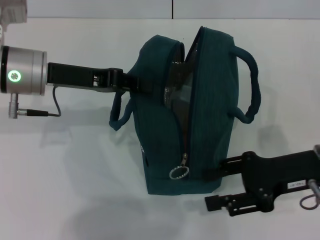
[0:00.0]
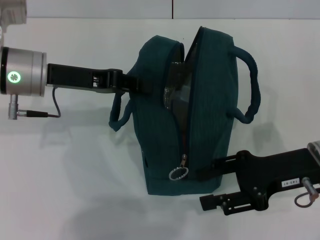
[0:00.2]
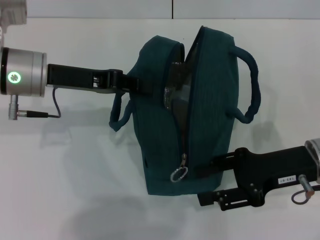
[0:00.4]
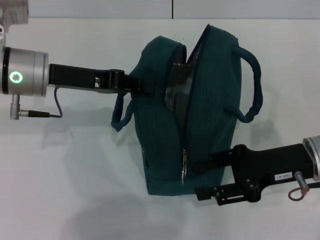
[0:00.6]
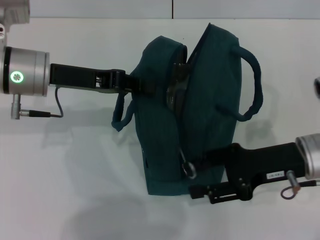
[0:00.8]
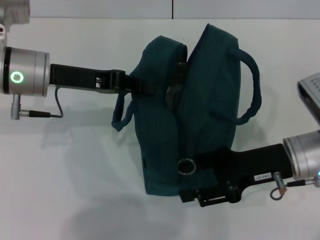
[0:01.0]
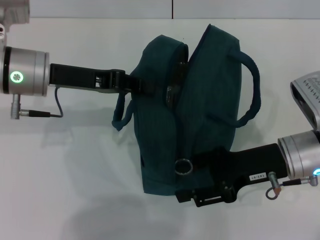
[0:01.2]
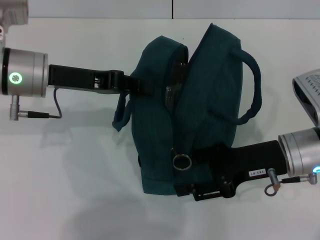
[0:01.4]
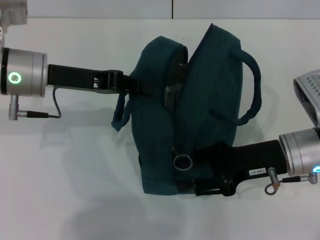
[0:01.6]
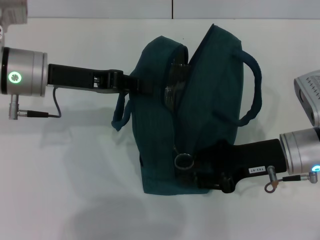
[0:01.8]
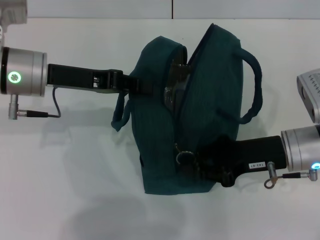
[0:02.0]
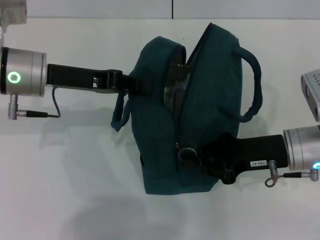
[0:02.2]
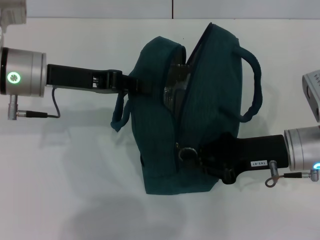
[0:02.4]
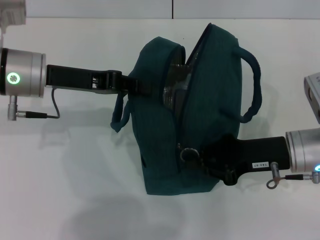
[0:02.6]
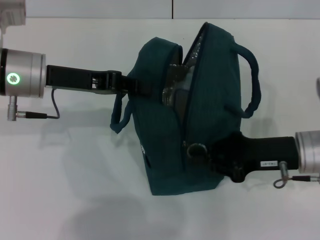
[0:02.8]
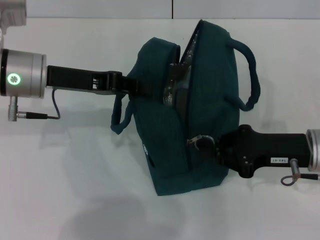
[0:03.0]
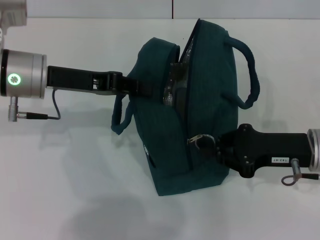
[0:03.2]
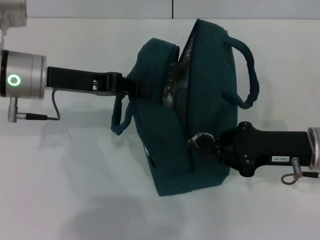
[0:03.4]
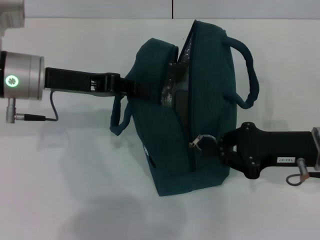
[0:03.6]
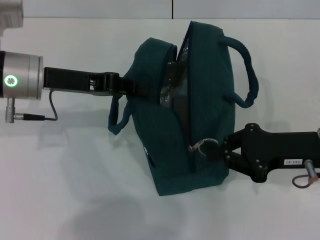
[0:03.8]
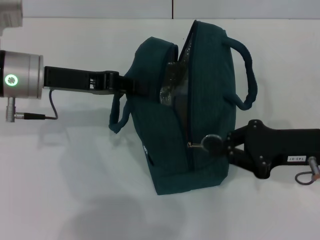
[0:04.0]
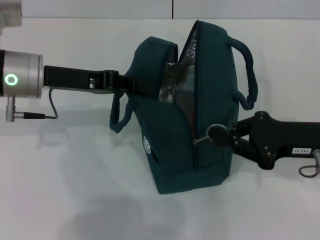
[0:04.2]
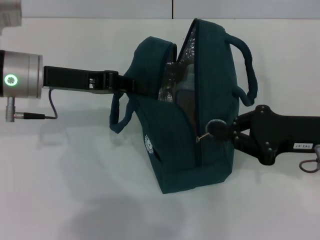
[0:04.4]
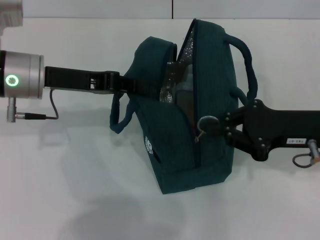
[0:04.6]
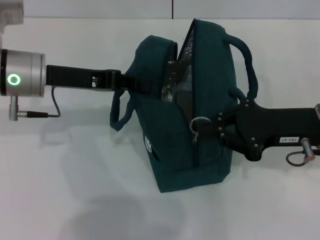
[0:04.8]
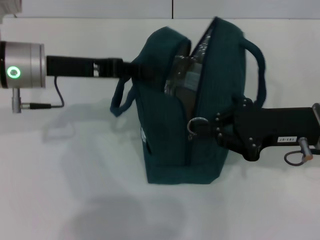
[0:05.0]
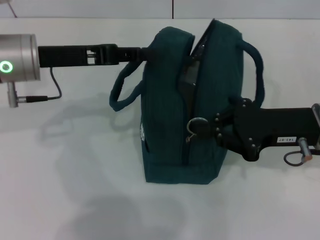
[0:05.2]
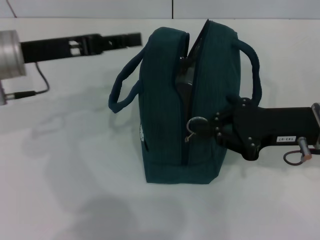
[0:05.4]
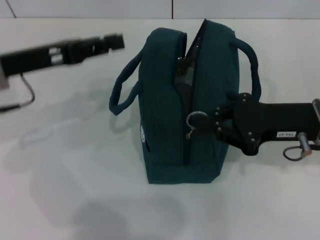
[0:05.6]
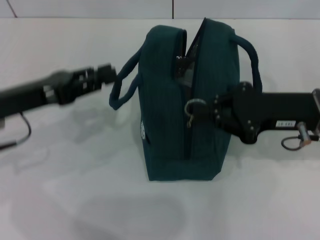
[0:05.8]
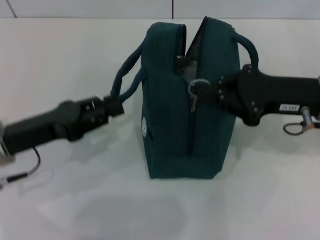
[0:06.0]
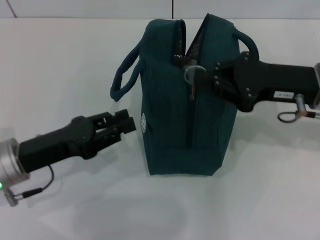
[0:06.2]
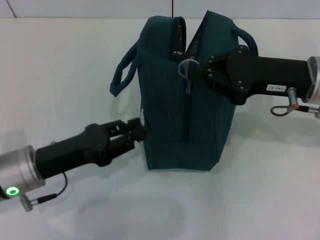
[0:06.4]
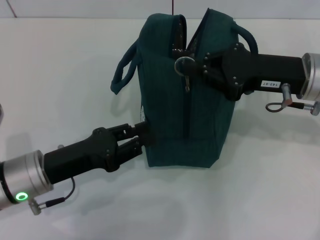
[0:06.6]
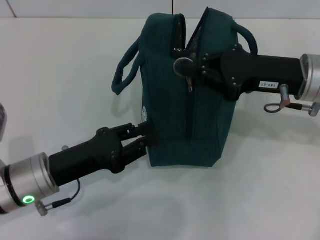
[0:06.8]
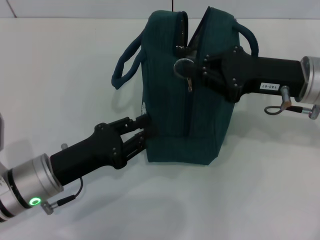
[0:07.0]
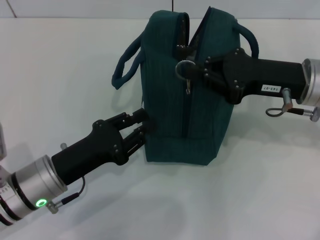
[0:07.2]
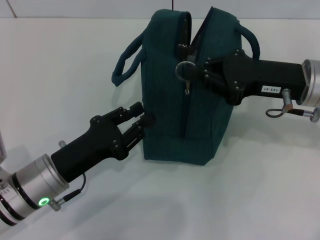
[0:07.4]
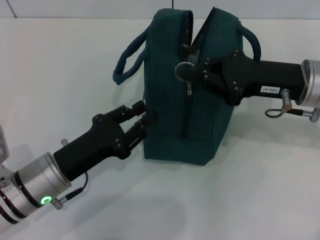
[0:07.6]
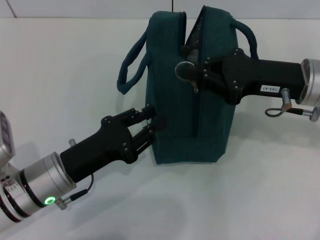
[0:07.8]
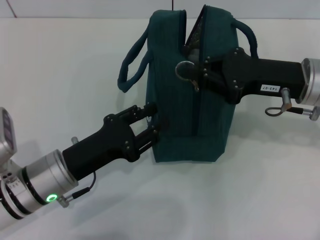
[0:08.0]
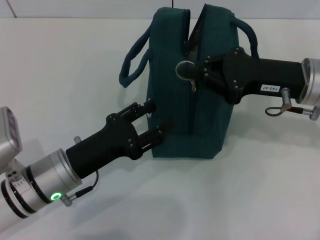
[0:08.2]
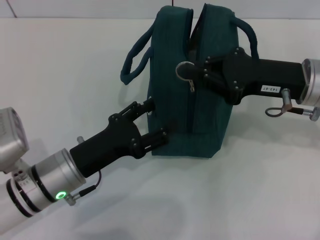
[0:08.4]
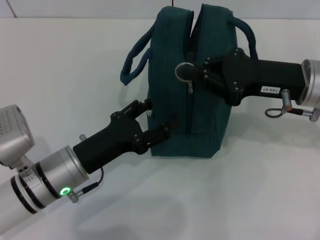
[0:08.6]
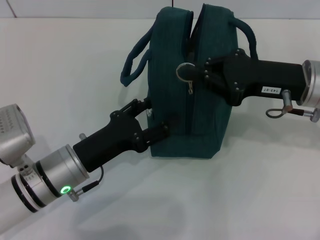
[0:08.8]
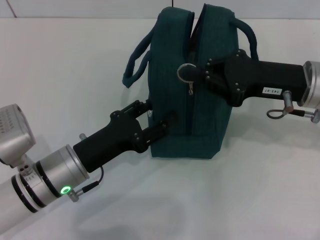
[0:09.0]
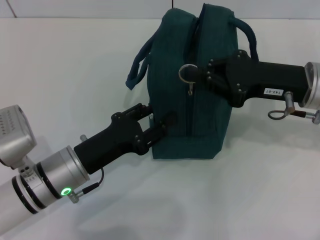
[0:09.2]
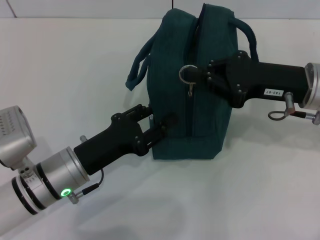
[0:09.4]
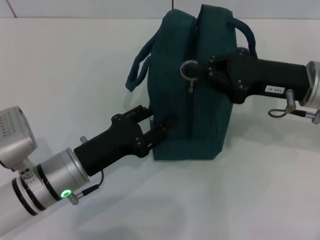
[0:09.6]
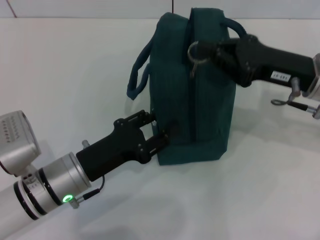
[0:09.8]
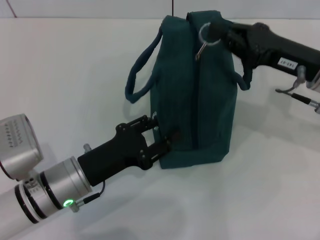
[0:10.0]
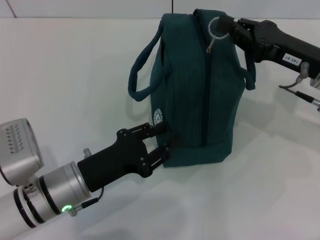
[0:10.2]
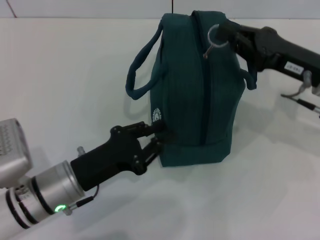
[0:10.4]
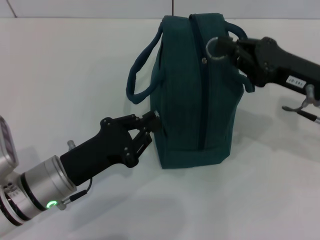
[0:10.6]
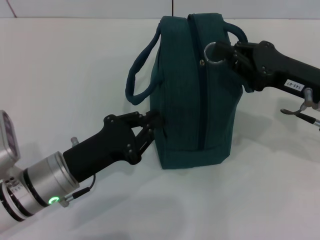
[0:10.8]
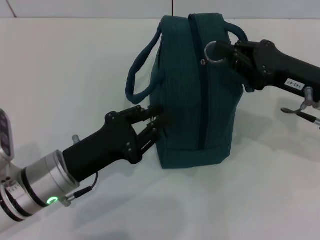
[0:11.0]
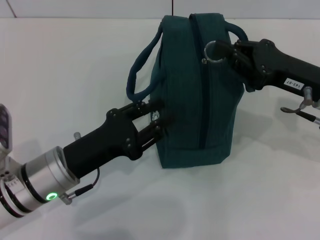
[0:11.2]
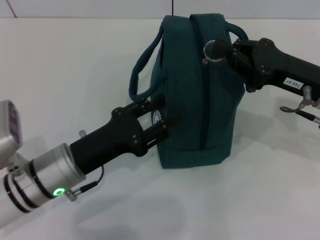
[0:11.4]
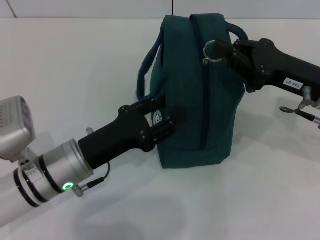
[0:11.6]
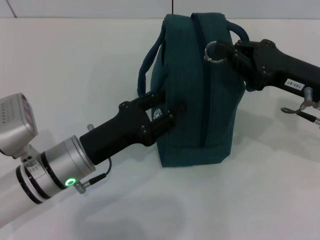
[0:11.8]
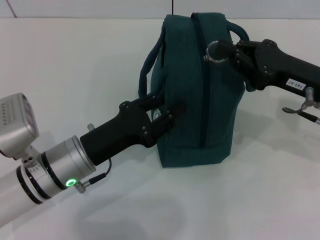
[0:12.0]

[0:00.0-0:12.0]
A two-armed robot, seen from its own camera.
0:00.0 to 0:01.6: There are only small adjustments of the grippers.
0:01.6 to 0:03.0: The right gripper closes its fingers.
0:03.0 to 0:04.4: The grippers make only small movements.
0:04.4 to 0:06.0: The left gripper heads backward and downward, covering about 10 cm, and opens.
0:06.0 to 0:07.6: The left gripper travels to the right and downward by about 10 cm.
0:07.6 to 0:09.0: The left gripper opens up.
0:09.0 to 0:10.4: The left gripper closes up.

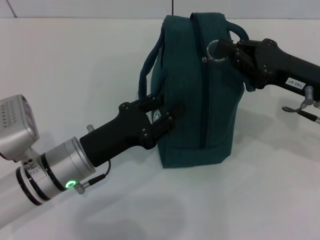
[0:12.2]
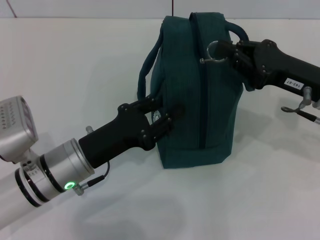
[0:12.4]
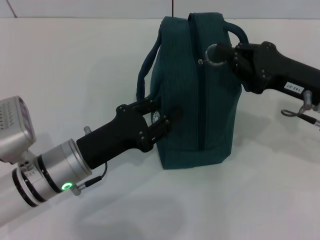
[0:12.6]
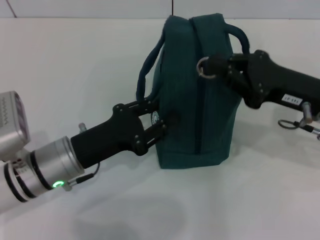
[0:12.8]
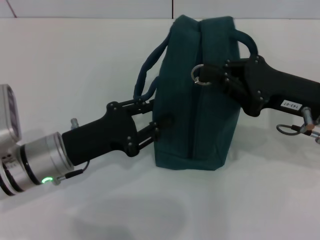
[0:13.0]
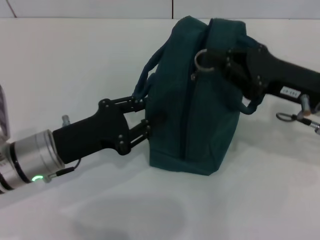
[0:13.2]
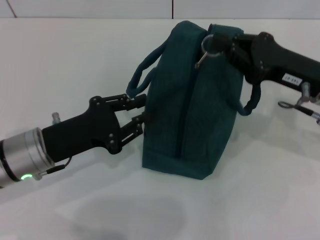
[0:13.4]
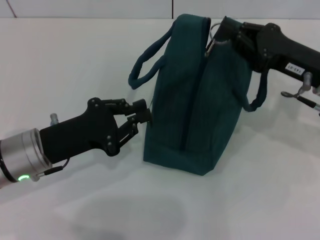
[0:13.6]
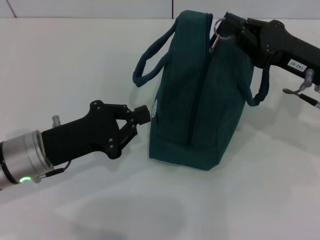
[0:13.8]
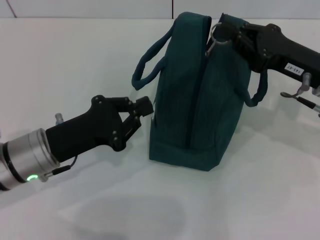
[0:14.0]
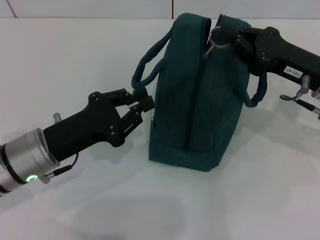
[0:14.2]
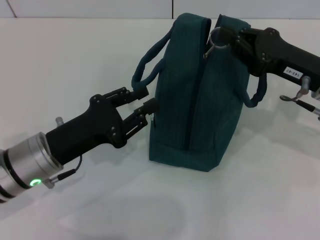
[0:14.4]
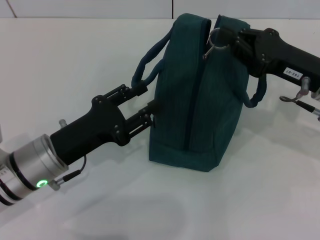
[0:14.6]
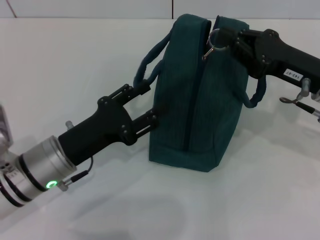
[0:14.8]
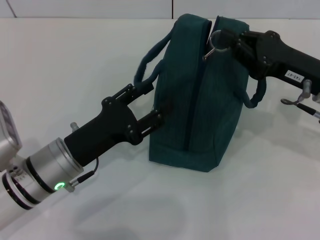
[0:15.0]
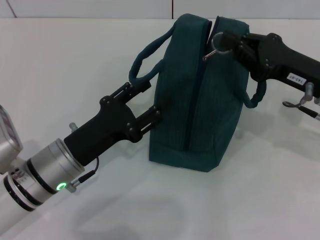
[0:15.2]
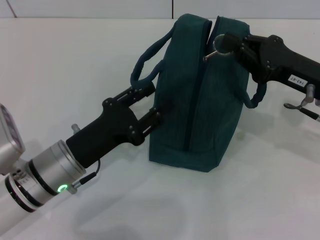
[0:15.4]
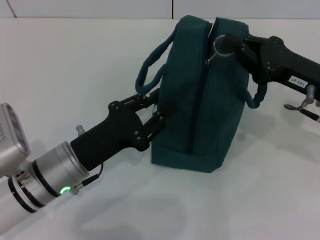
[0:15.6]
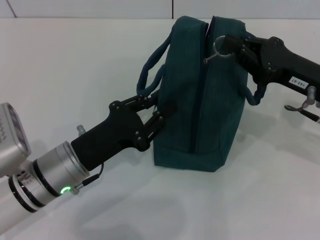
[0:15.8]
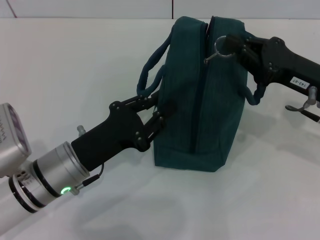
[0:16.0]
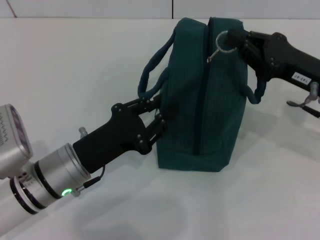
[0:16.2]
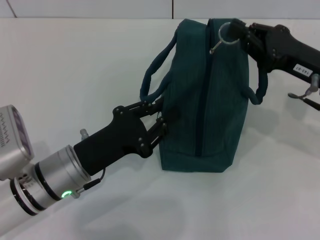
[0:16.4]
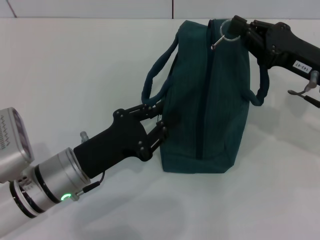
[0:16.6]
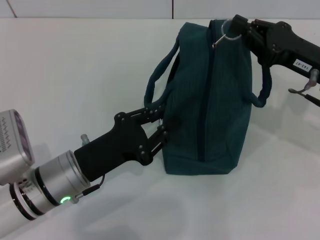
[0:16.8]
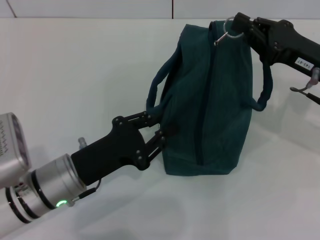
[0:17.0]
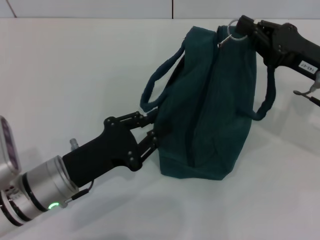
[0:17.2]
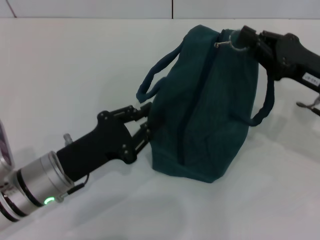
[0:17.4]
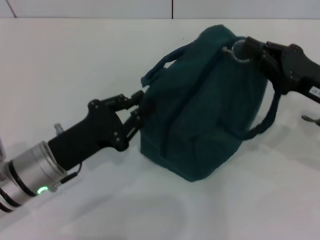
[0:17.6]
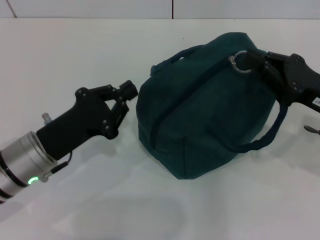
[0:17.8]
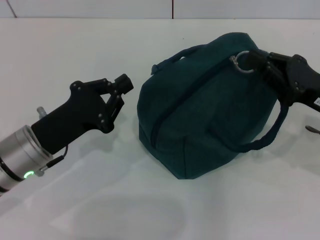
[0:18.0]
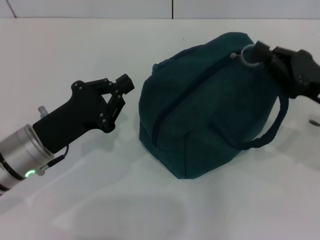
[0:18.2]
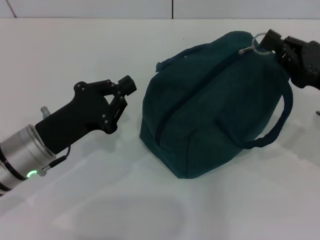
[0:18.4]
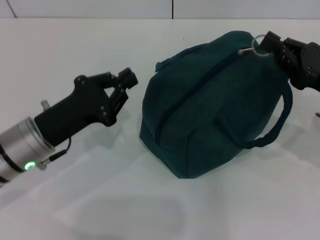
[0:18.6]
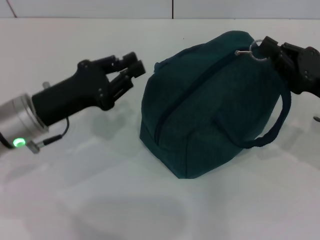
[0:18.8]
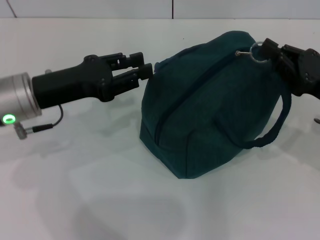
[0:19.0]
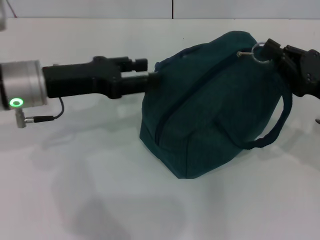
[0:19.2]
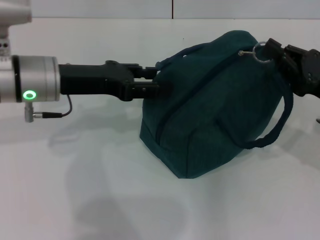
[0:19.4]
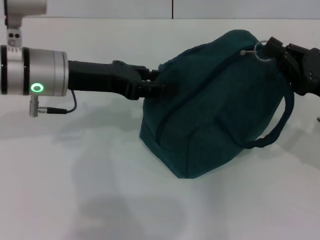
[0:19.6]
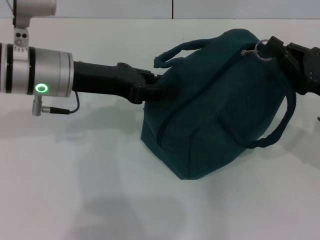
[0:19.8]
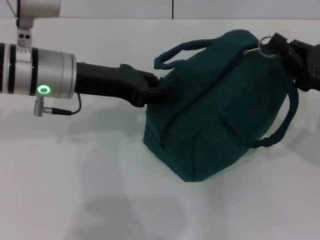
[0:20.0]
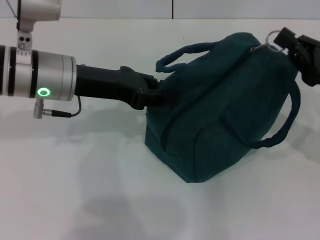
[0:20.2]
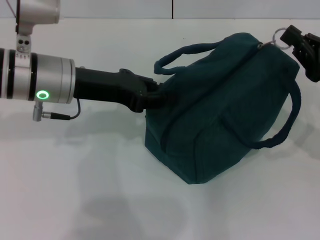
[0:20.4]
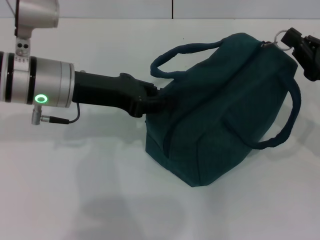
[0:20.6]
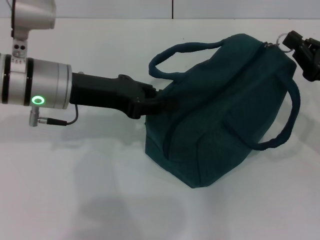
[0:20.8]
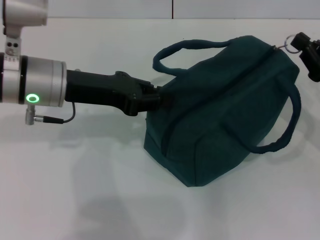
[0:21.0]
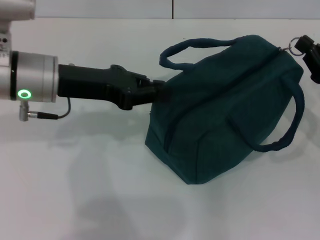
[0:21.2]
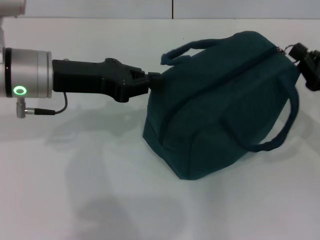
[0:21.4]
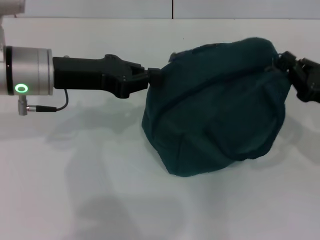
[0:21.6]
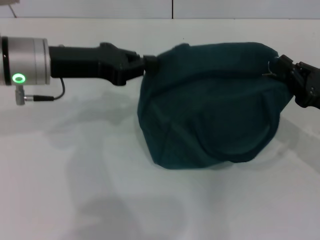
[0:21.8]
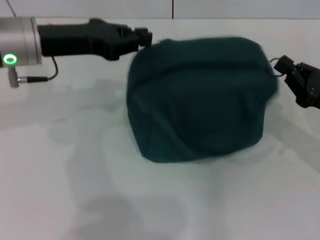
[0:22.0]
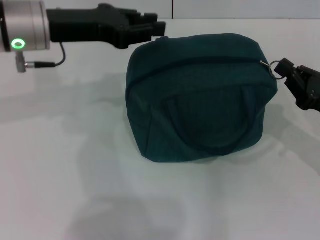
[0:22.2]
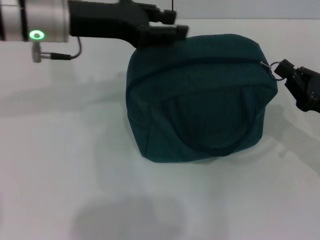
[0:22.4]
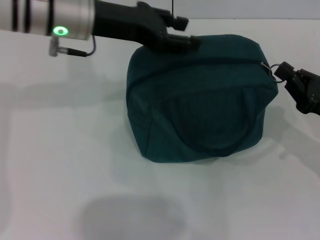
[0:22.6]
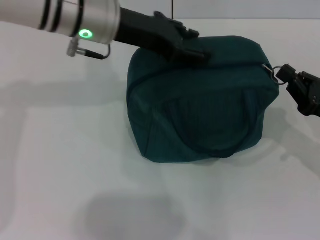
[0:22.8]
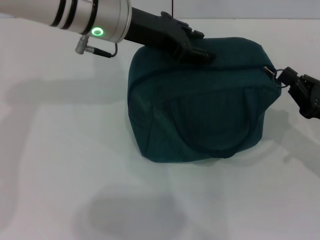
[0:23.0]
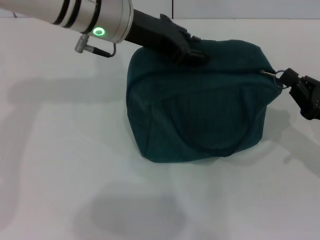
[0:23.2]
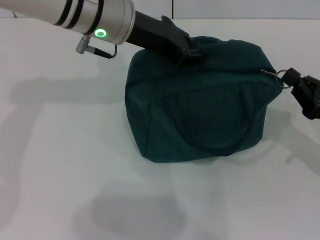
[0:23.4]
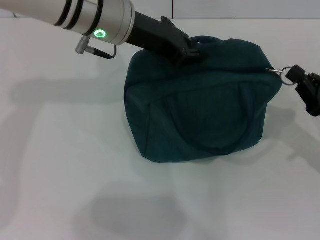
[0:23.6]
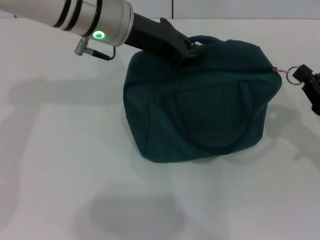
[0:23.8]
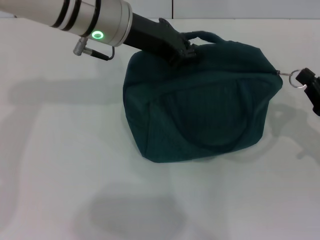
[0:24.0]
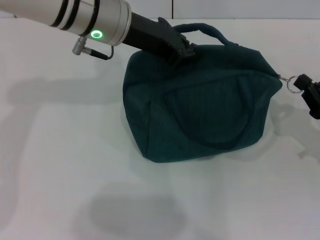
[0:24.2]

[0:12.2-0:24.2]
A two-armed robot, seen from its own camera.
0:12.2 to 0:13.8: The left gripper shifts about 5 cm to the left, and closes up.
0:13.8 to 0:15.2: The left gripper shifts by some 5 cm, and opens.
0:15.2 to 0:16.6: The left gripper closes up.
0:16.6 to 0:18.2: The right gripper moves roughly 5 cm. Meanwhile the left gripper moves some 5 cm.
0:18.2 to 0:19.8: The left gripper travels upward and forward by approximately 15 cm, and opens its fingers.
0:19.8 to 0:21.2: The left gripper closes.
0:21.2 to 0:22.6: The left gripper moves forward, some 5 cm, and opens up.
0:22.6 to 0:24.2: The left gripper closes up.
